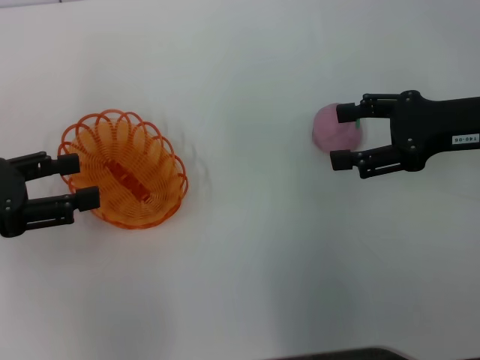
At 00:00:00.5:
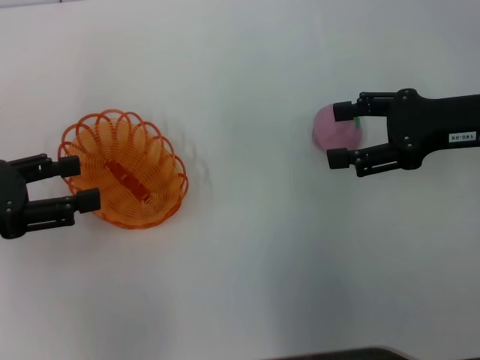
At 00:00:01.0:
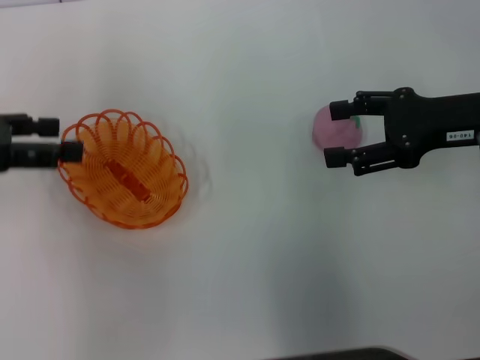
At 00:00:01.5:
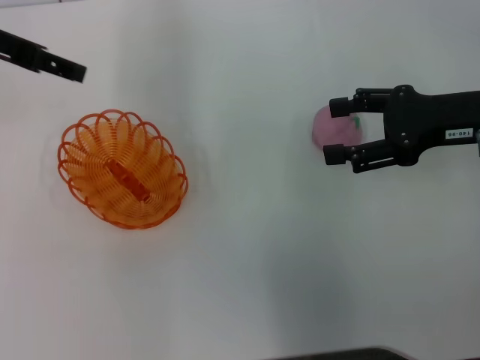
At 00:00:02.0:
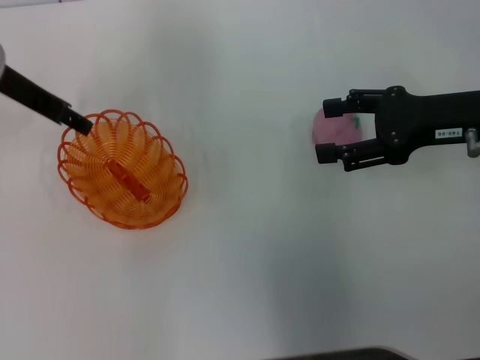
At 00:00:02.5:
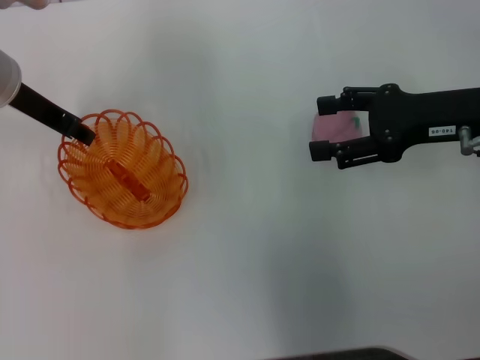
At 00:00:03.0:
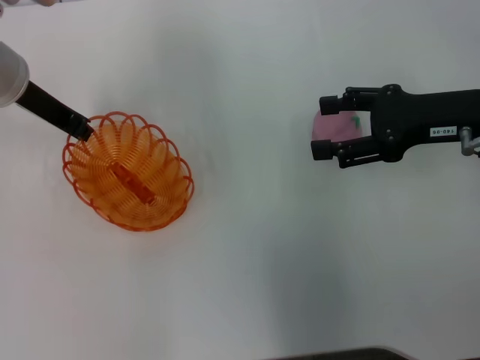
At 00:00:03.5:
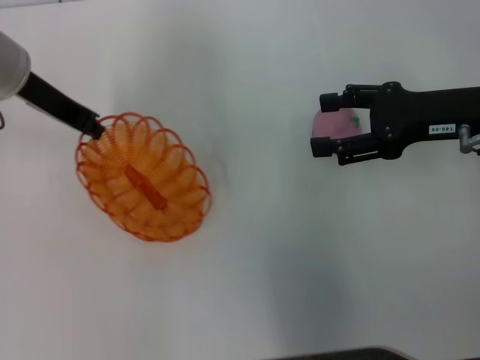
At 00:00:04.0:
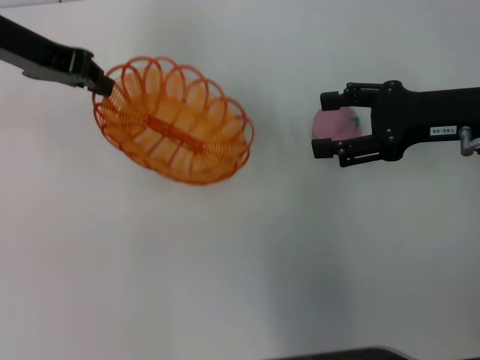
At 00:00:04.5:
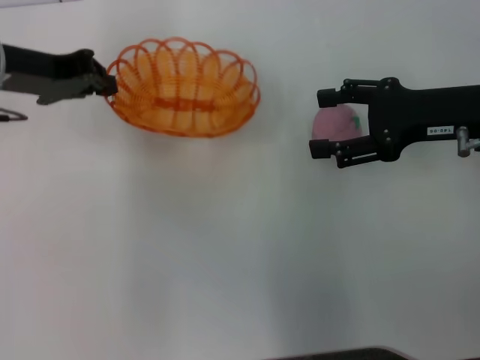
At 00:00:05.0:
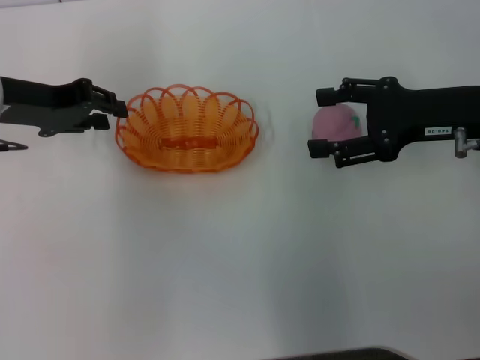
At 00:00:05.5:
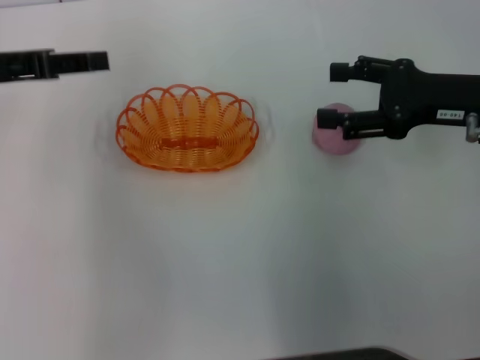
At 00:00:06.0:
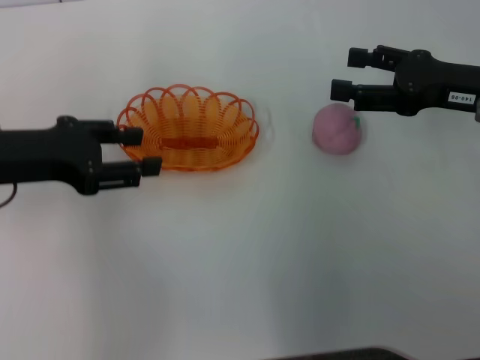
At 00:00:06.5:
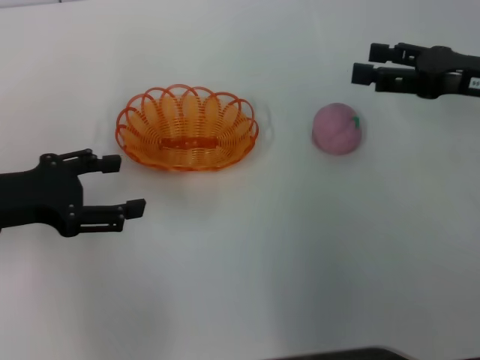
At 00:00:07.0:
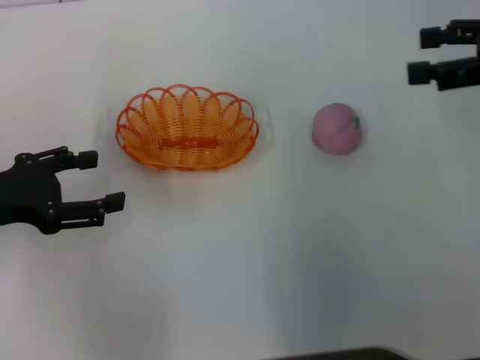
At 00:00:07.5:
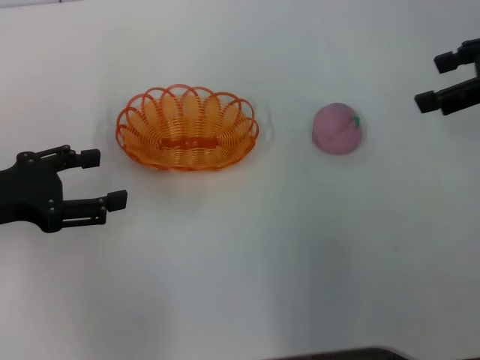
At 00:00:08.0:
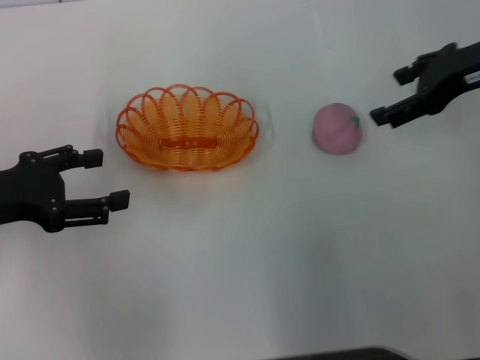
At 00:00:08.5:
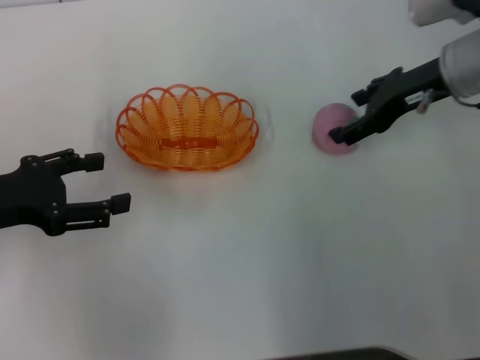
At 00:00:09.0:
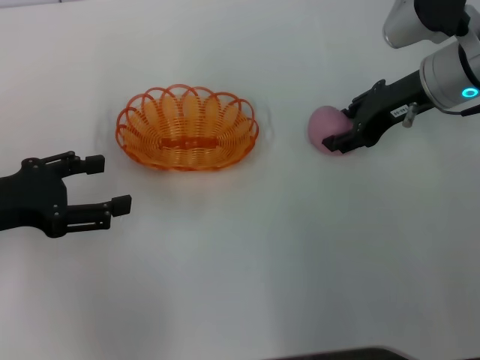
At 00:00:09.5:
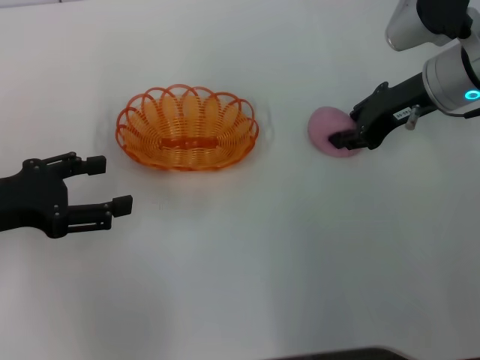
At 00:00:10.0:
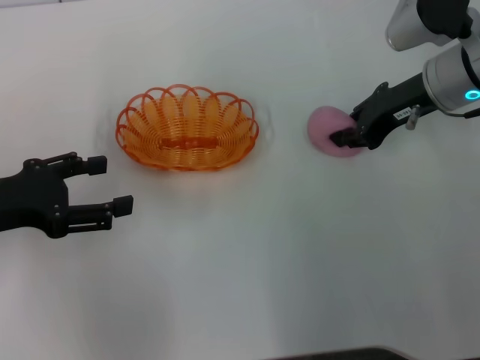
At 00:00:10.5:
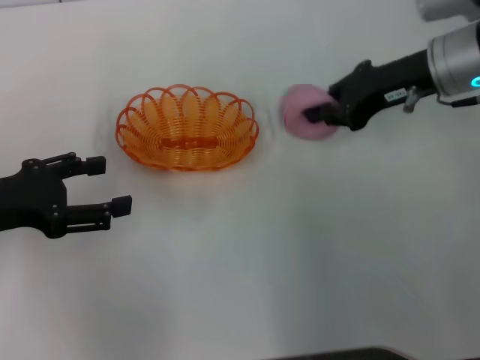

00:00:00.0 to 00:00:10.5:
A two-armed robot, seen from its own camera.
Step, 00:00:00.0 to 00:00:04.0: Pick up the basket with the left gripper.
Step, 00:00:04.5 to 00:00:05.0: Place the basket in the center of view with the left gripper.
Step, 00:00:05.5 to 00:00:10.0: Pick up the peach with the right gripper.
00:00:00.0 to 00:00:02.0: The left gripper shifts roughly 20 cm forward and to the right.
00:00:02.0 to 00:00:04.0: The left gripper closes.
00:00:04.0 to 00:00:06.5: The left gripper heads backward and downward, covering approximately 15 cm, and opens.
00:00:06.5 to 00:00:08.5: The right gripper travels forward and to the left by roughly 10 cm.
00:00:08.5 to 00:00:10.5: The right gripper closes its fingers.

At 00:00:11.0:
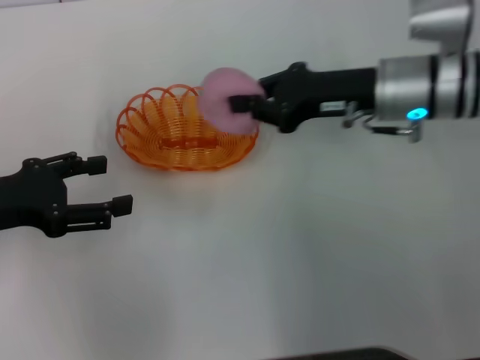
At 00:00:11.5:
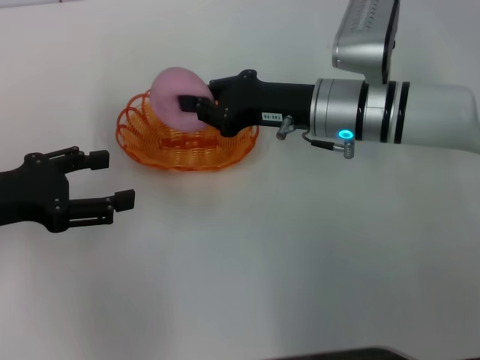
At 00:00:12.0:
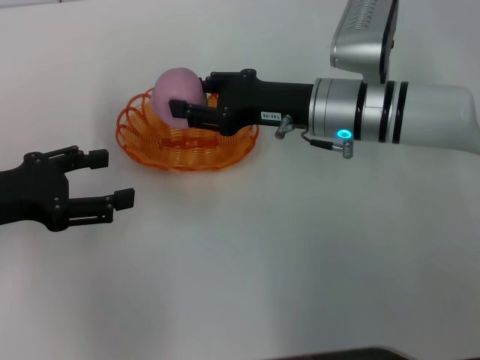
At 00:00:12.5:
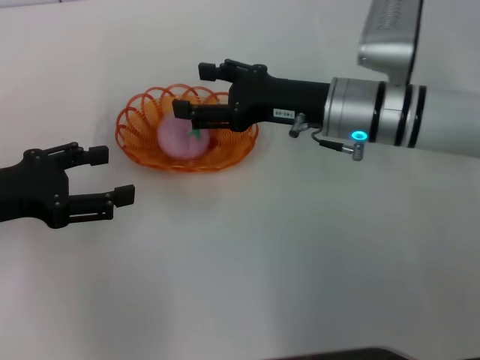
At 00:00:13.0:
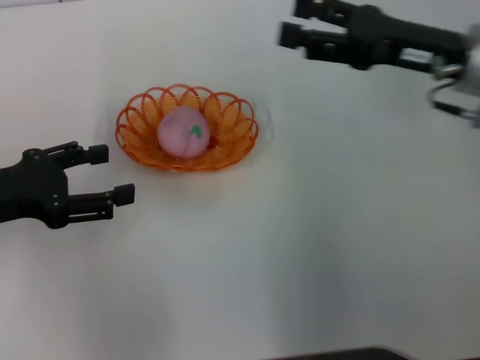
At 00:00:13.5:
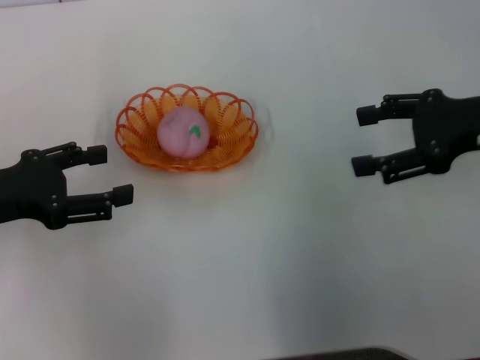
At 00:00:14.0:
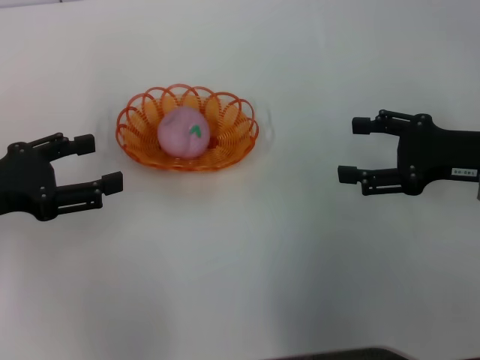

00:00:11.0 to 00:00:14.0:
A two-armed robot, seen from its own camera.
Step, 00:00:11.0 to 00:00:12.5: Place the peach into the basket with the right gripper.
00:00:11.0 to 00:00:12.5: The right gripper moves about 5 cm, and opens.
00:00:12.5 to 00:00:14.0: The right gripper moves to the right and backward, about 15 cm.
